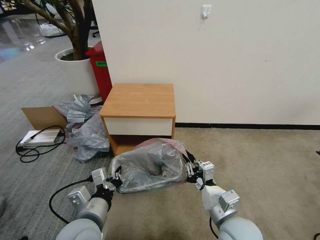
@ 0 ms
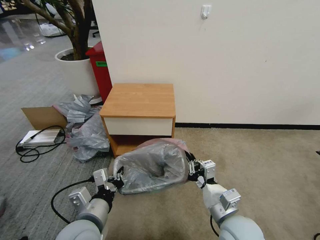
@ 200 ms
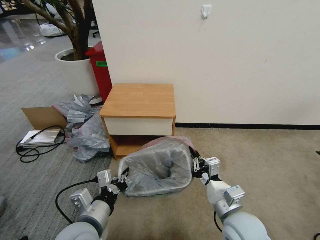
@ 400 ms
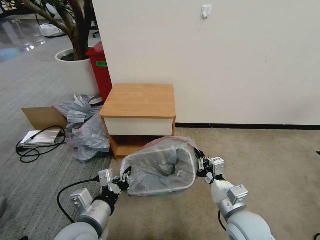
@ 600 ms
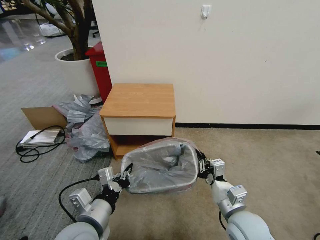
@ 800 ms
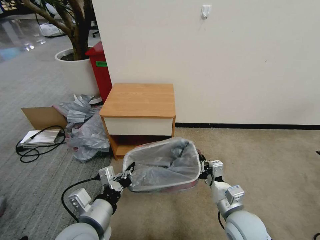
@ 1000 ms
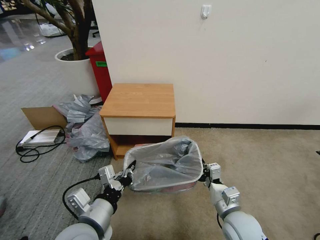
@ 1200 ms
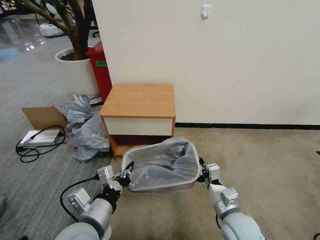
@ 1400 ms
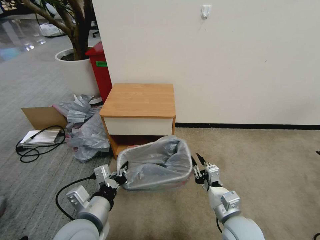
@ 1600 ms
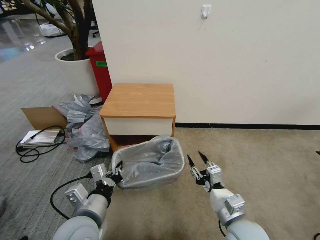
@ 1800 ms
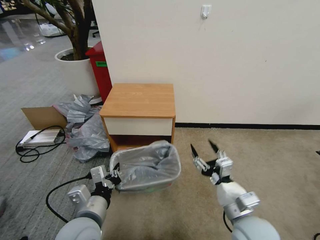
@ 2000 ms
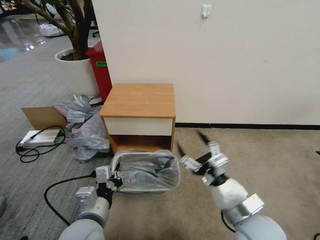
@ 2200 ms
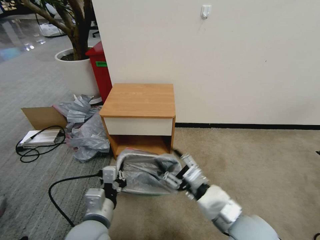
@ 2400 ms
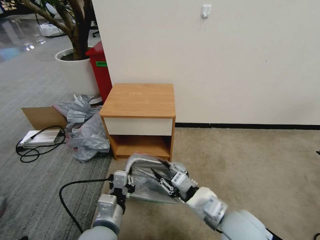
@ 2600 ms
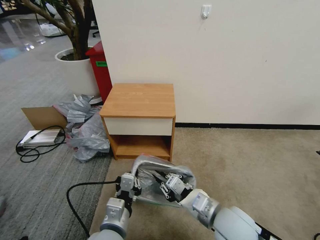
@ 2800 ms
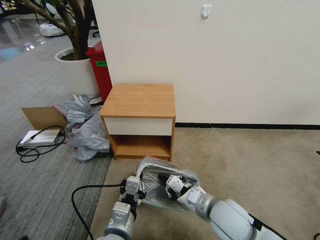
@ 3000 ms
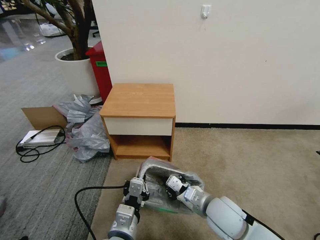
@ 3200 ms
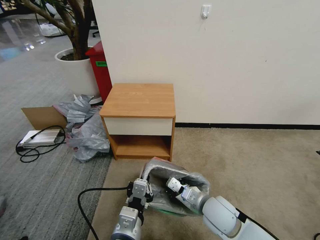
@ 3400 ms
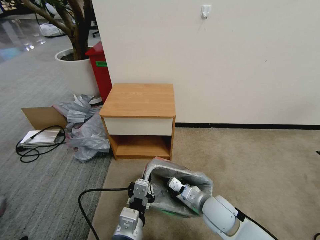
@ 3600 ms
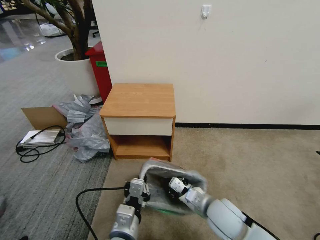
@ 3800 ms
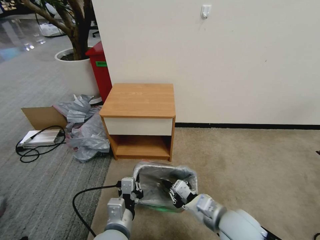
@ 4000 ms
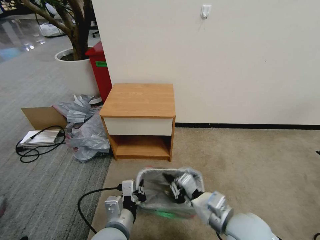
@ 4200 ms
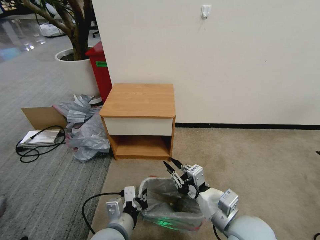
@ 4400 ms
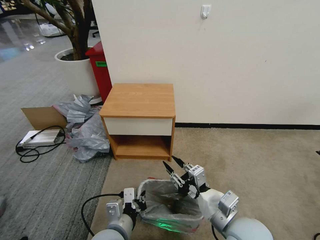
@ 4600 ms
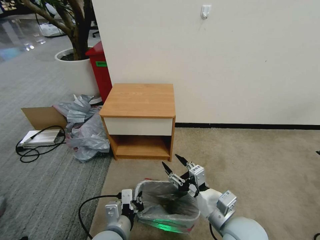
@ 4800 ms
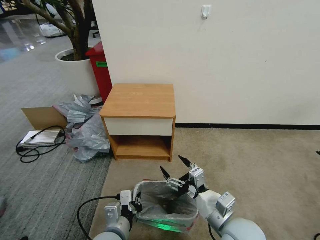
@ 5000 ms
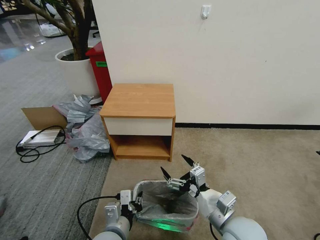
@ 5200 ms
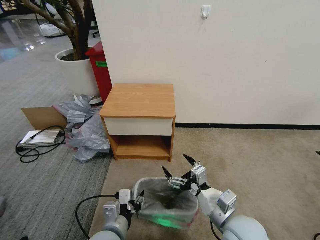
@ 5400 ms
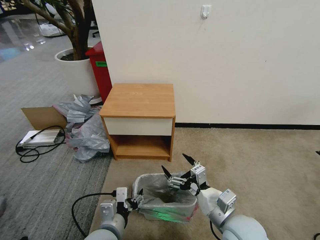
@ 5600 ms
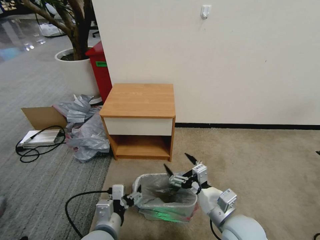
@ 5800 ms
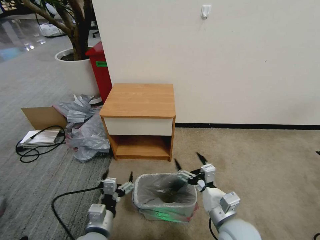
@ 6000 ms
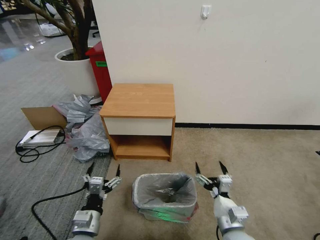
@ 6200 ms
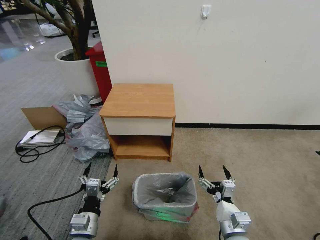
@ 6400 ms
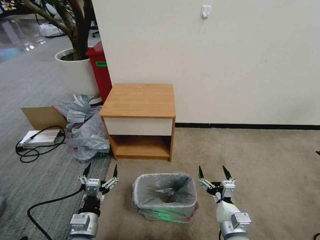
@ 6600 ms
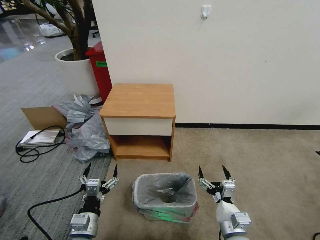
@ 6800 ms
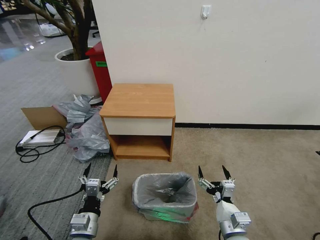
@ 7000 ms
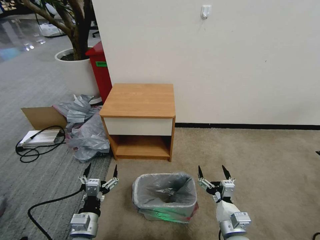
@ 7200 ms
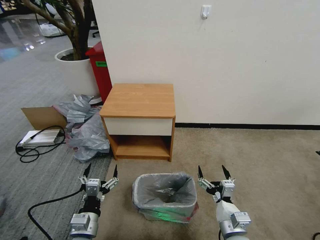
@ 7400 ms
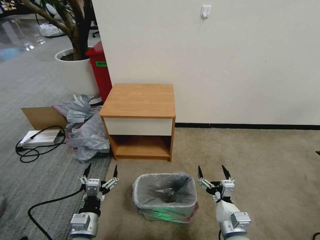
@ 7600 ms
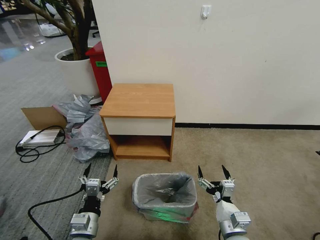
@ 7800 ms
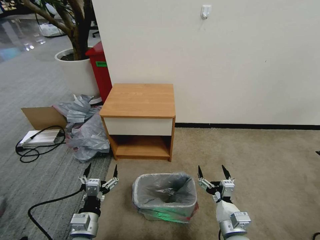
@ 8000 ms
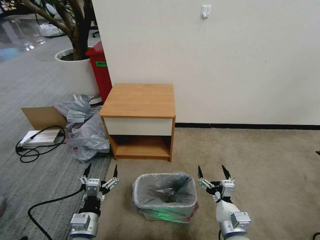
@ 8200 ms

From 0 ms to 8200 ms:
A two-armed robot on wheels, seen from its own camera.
Task of the whole recording: Pick up the garbage bag from the table and place it over the trash can.
From 0 ms to 1600 ms: The right gripper moves approximately 5 cm.
From 1600 ms to 3200 ms: The right gripper reaches some 10 cm upward, then returns, and opens, then closes again, while the left gripper moves to the right, roughly 10 cm.
From 3200 ms to 5000 ms: The right gripper goes up and down, approximately 10 cm each way, reversing 2 times, and opens its fingers. Meanwhile the left gripper shifts by roughly 5 cm.
From 5000 ms to 6600 ms: The left gripper shifts about 10 cm to the left, and opens its fingers; the right gripper heads downward, covering approximately 10 cm.
From 6600 ms to 8200 ms: Neither gripper changes place.
